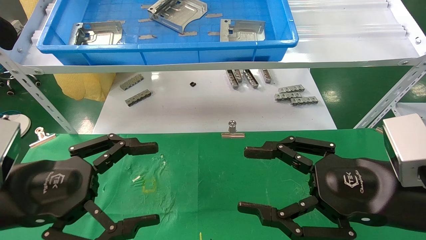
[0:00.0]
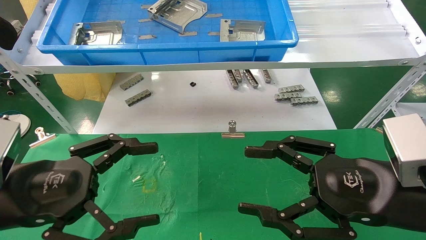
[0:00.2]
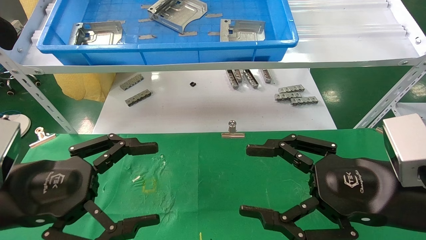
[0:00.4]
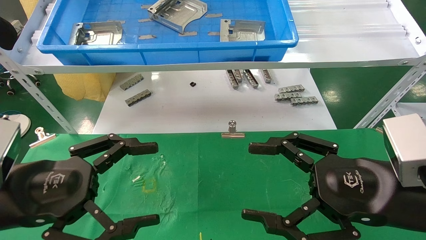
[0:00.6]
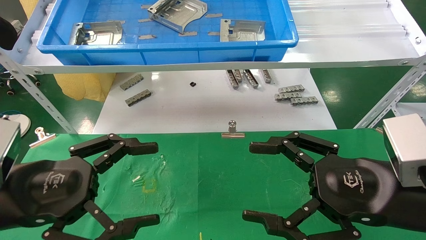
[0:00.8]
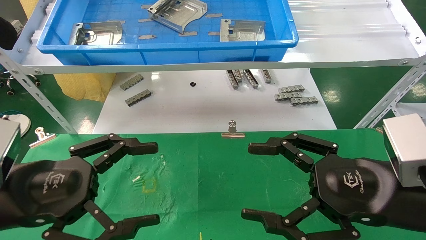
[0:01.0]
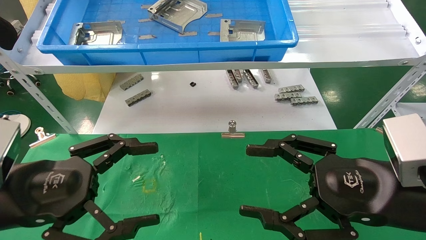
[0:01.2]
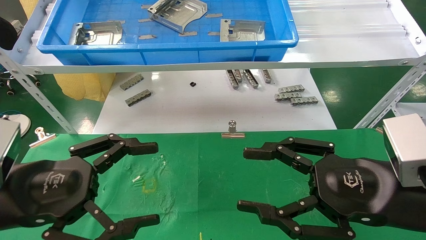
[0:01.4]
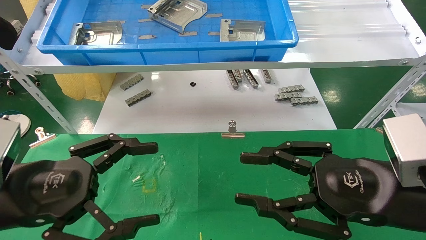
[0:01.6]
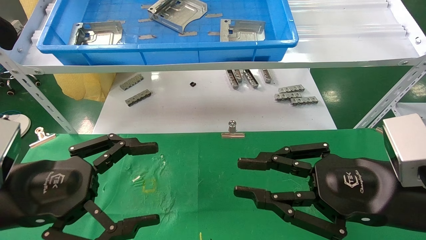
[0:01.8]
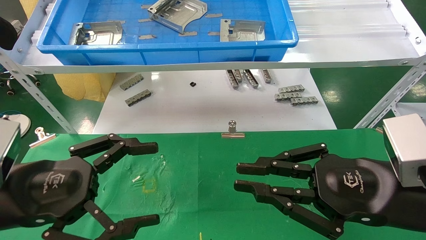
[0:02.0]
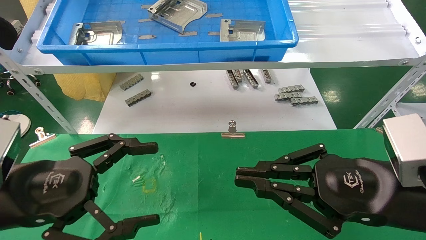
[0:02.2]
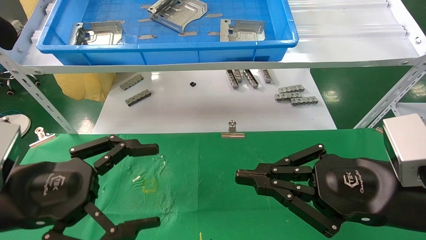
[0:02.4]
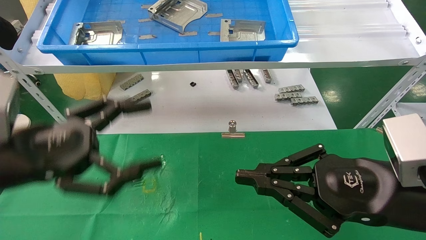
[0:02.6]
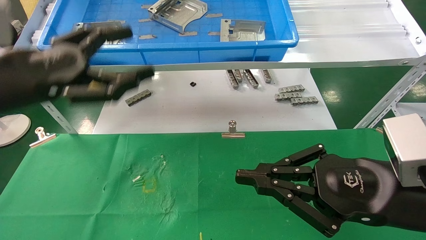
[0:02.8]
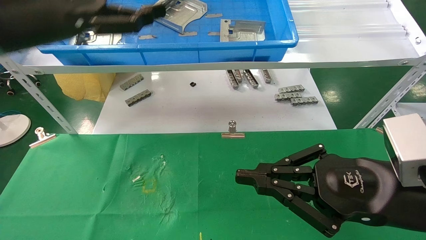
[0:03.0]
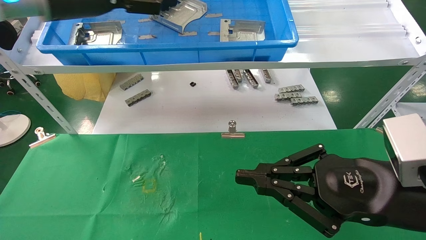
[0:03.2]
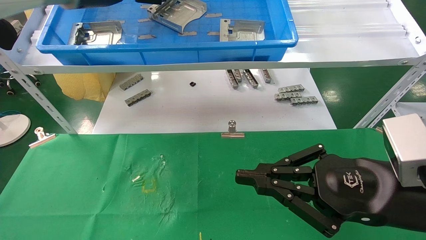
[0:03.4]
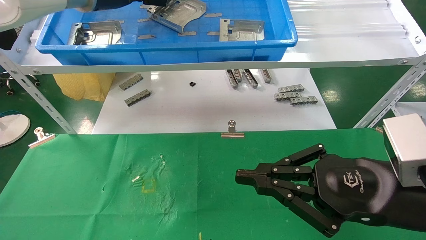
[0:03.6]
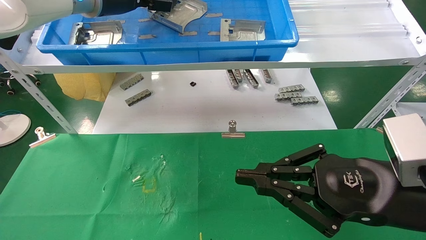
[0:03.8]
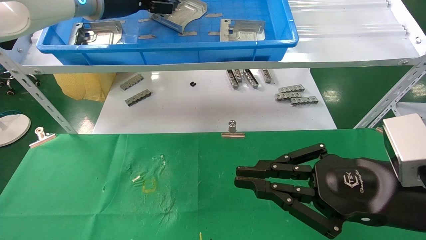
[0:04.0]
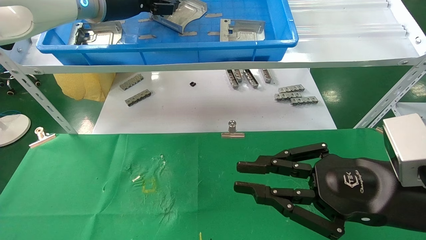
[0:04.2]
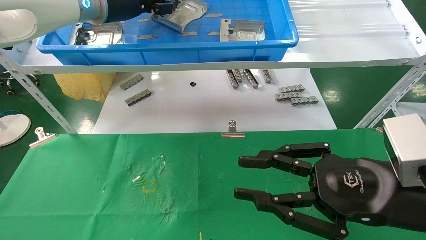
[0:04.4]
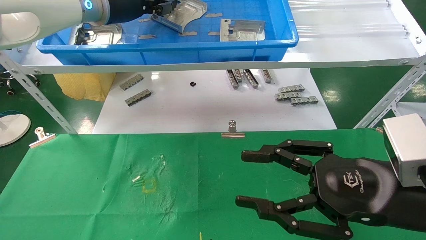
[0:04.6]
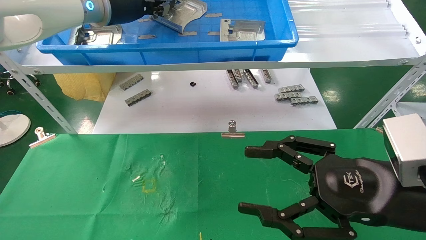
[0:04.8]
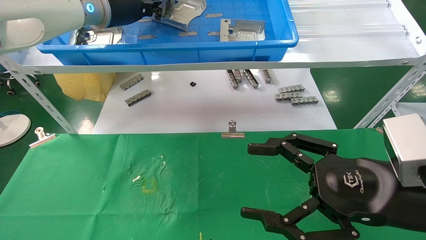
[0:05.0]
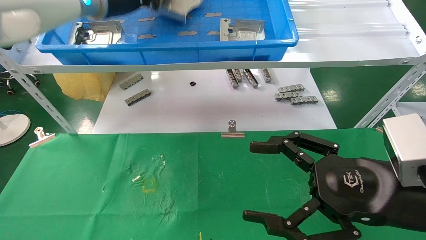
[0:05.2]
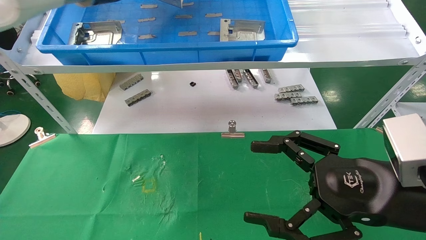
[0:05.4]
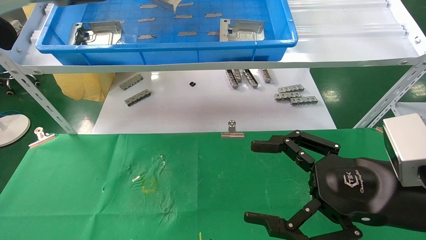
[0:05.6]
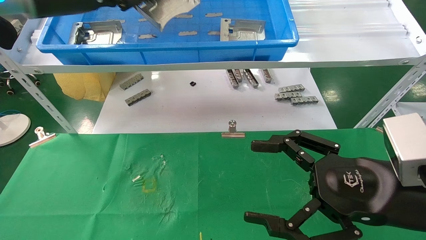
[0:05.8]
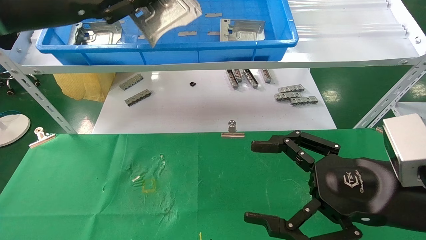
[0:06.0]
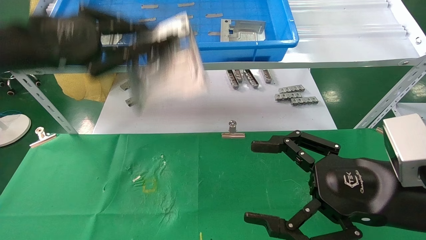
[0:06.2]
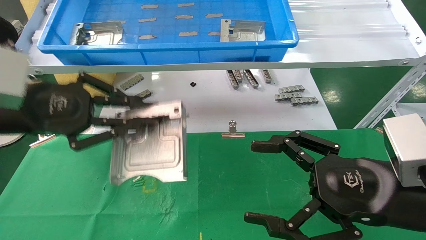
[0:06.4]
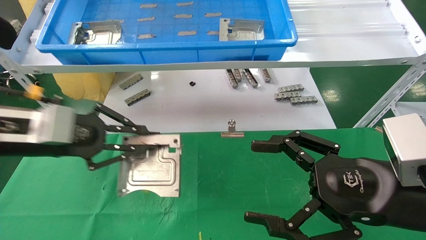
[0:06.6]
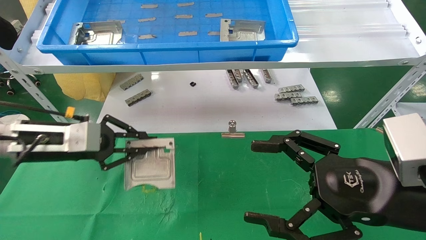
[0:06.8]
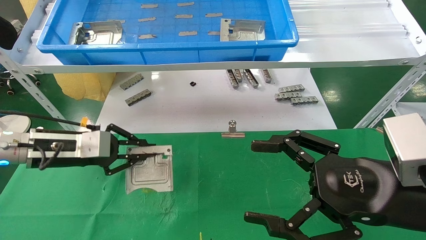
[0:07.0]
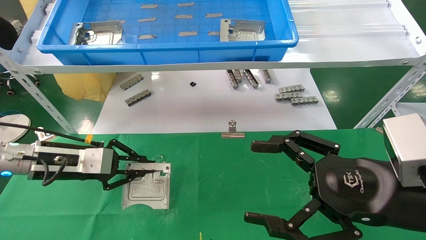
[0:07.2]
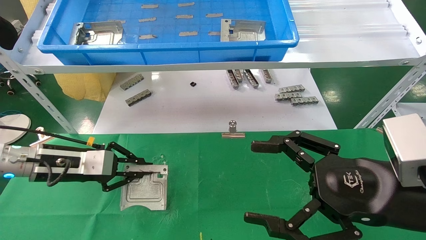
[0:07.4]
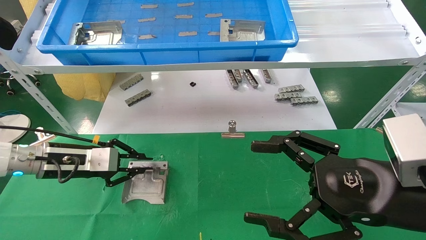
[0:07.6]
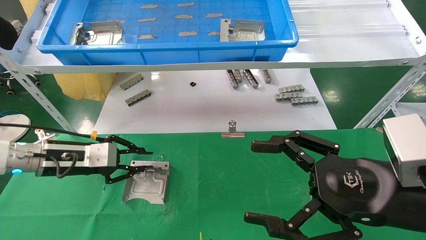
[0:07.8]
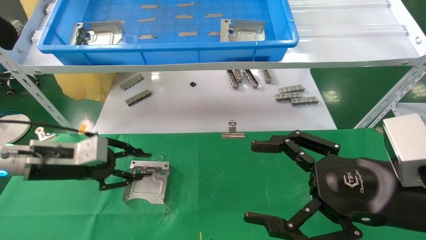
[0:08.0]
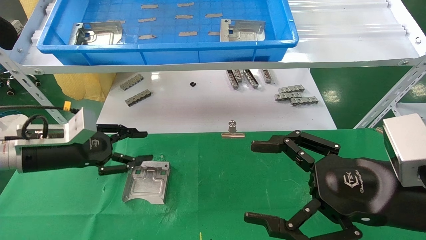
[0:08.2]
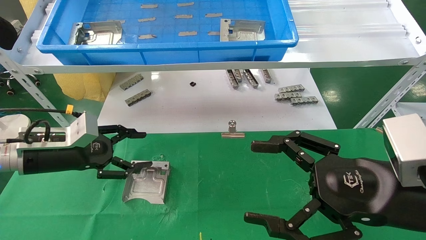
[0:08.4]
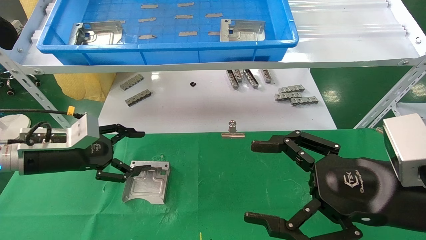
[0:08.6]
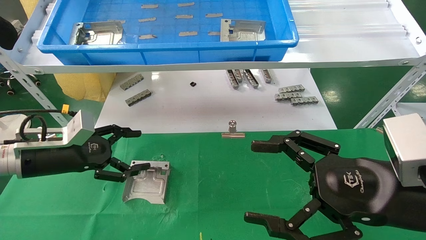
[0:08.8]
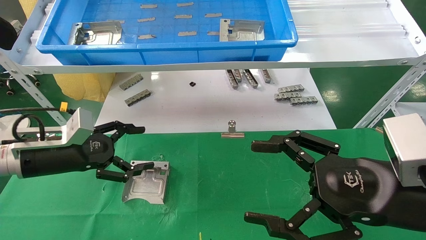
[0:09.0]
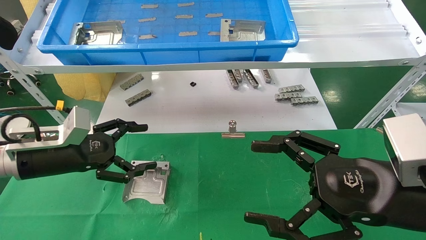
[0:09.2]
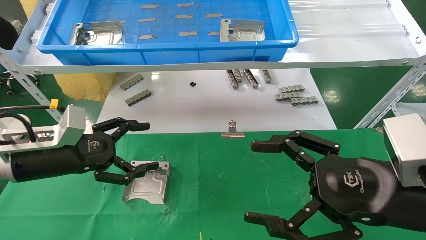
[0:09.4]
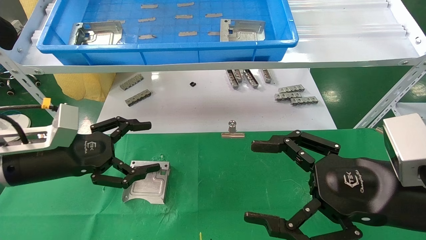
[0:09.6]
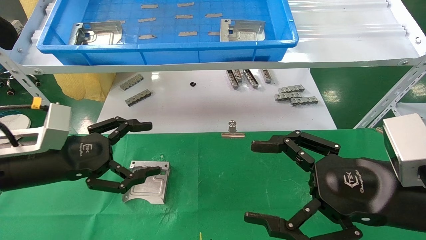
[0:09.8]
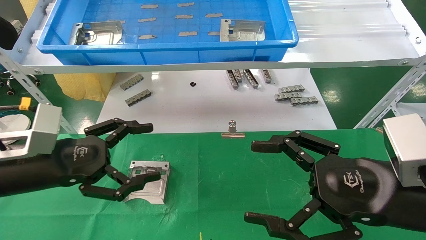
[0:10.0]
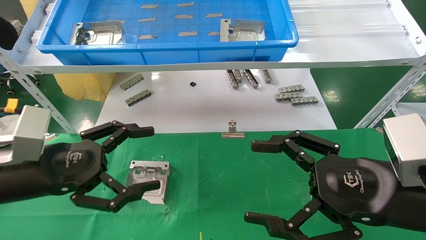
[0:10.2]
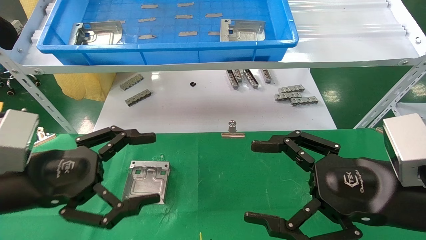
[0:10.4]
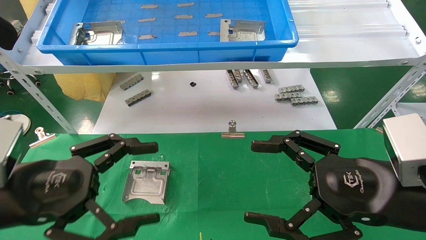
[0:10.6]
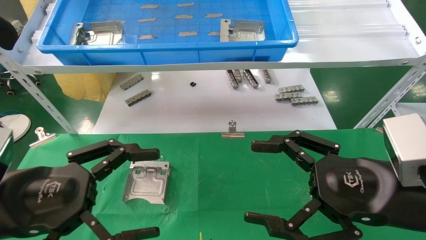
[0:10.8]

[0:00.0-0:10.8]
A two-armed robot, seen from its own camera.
Task of the whole recording: use the mechanical arm to pick up the parts and place them on the table.
Step, 0:02.6 to 0:05.0: Pick up the hard drive bracket from the feeding area.
Step, 0:05.2 to 0:08.0: Place the hard drive bracket into the box.
0:00.0 to 0:01.6: Both grippers stay put.
0:01.6 to 0:03.0: The right gripper closes. The left gripper travels upward and forward by about 20 cm.
0:03.0 to 0:04.6: The right gripper opens its fingers. The left gripper heads forward, to the right and upward, covering roughly 15 cm, and closes.
0:04.6 to 0:06.2: The left gripper shifts about 20 cm backward, to the left and downward, and closes its fingers; the right gripper opens.
0:06.2 to 0:07.8: The left gripper heads downward, covering some 20 cm.
0:07.8 to 0:09.2: The left gripper opens up.
0:09.2 to 0:10.8: The left gripper shifts approximately 15 cm backward.

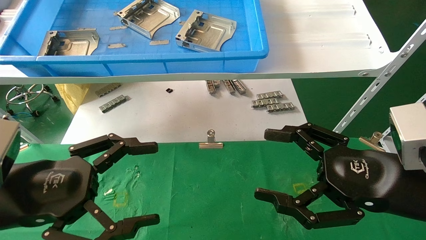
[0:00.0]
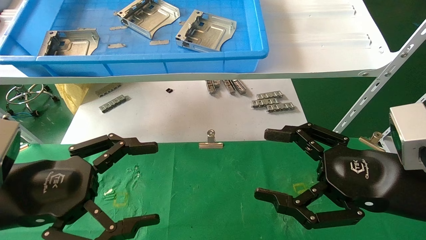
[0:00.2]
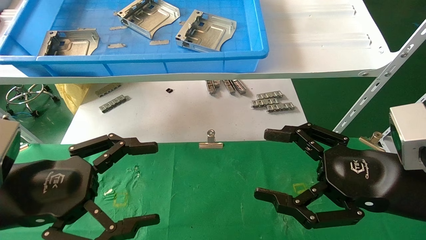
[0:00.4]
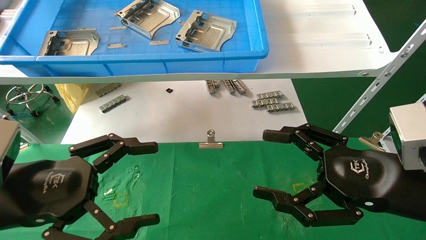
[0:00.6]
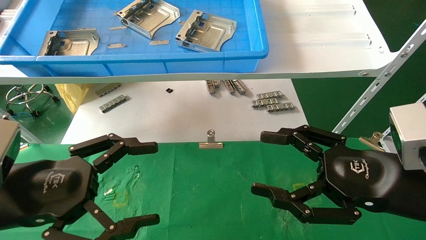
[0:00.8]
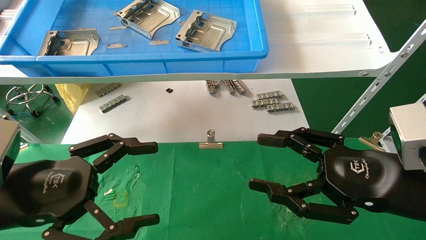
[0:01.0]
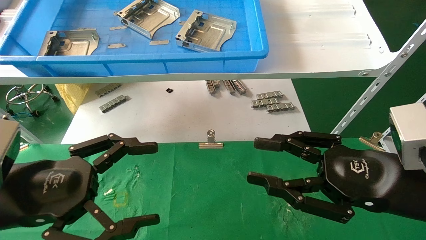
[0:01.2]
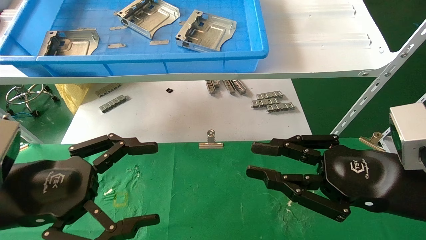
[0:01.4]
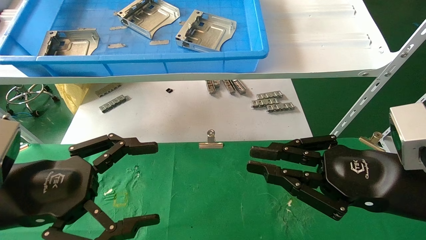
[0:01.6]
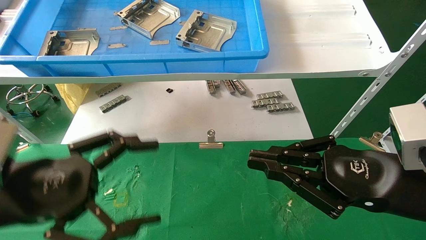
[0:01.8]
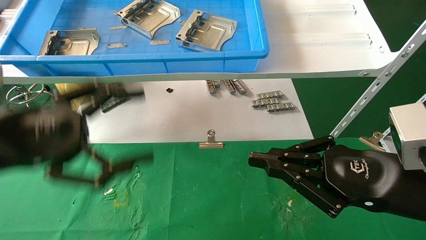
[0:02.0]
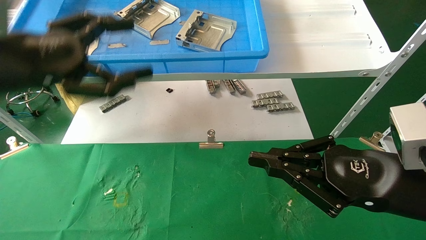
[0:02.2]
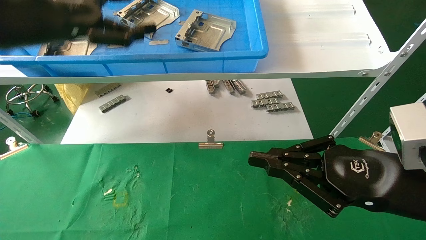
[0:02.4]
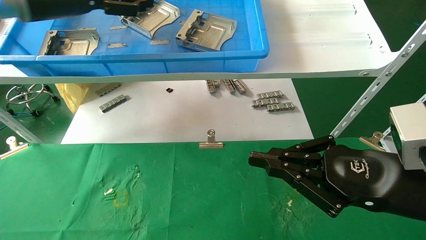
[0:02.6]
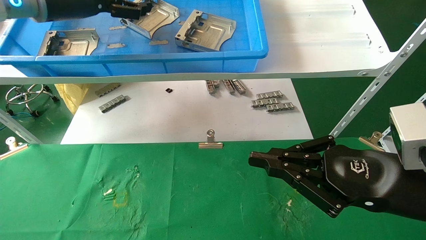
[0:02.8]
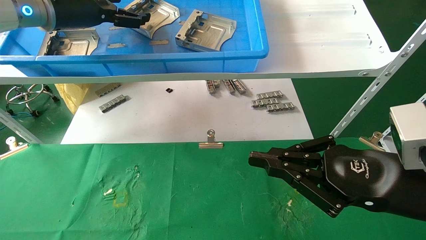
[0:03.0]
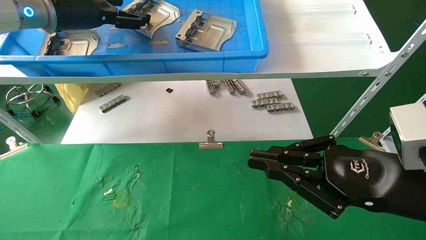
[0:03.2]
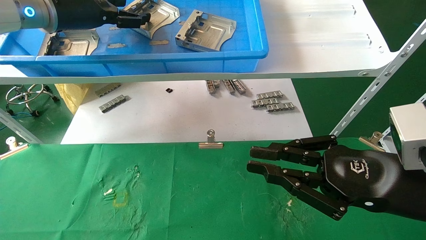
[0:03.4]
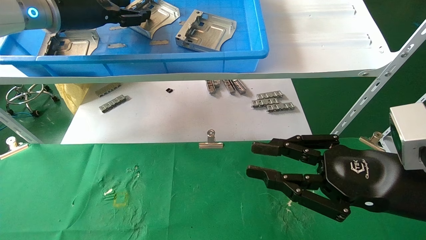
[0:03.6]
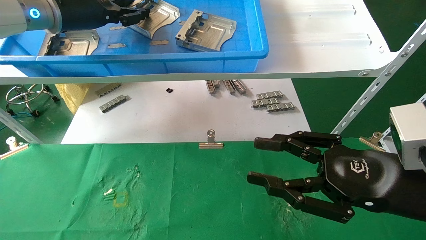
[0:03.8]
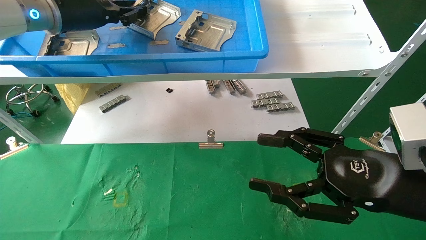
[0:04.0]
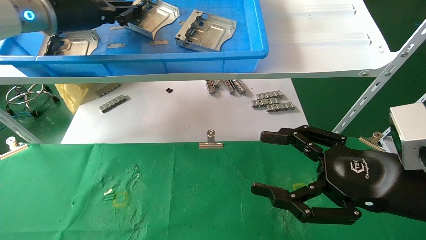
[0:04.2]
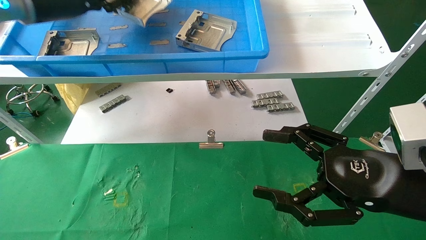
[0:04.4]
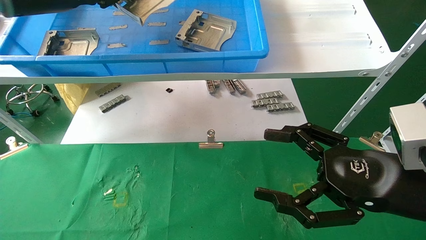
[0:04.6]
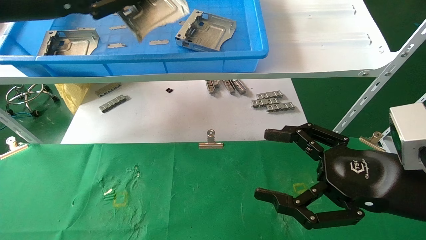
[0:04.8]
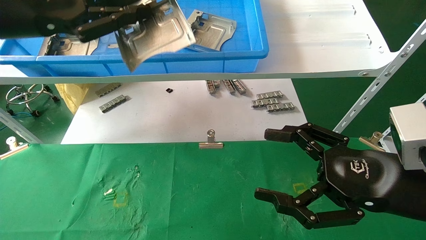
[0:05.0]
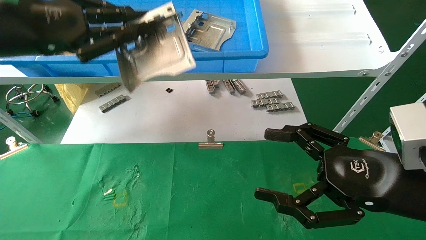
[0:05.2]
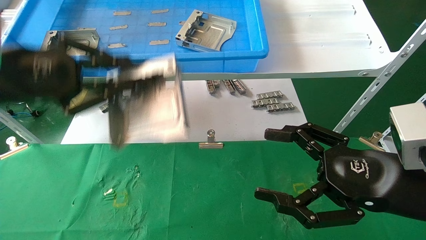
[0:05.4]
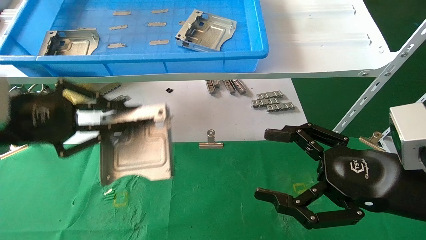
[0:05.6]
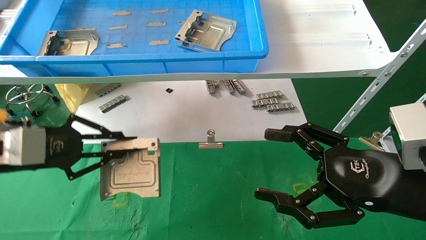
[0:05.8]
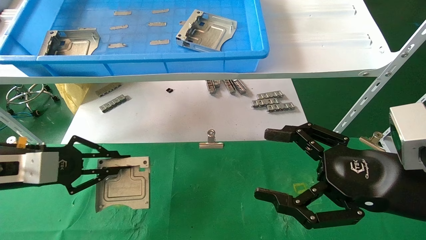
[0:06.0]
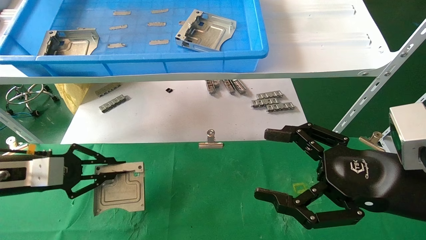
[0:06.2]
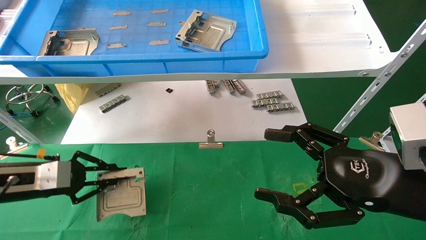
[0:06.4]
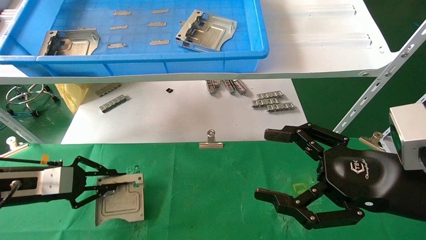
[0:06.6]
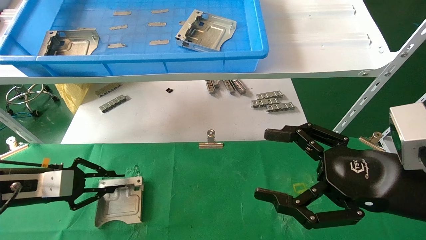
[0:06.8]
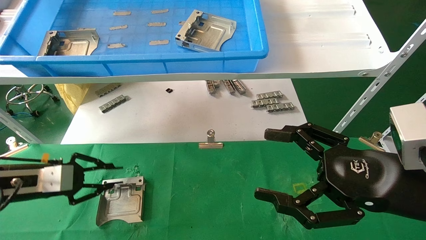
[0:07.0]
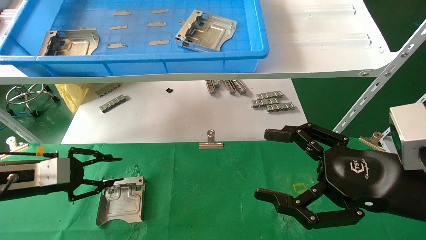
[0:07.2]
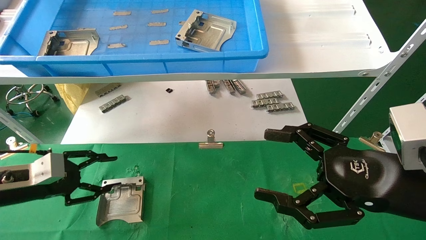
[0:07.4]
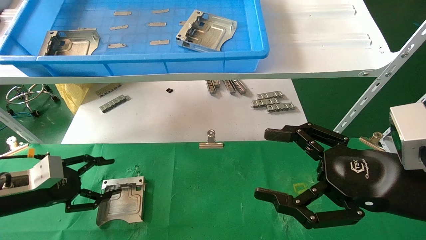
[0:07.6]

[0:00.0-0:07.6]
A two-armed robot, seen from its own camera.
Task of the whole recording: use the mechanical arm to pick up the parts and place them on the table.
Step, 0:02.0 to 0:04.0: Pick up the hard drive bracket from the feeding area.
Step, 0:04.2 to 0:07.4: Place the hard drive bracket into the box.
0:00.0 to 0:01.6: The right gripper closes.
0:01.6 to 0:03.0: The left gripper goes about 30 cm forward and upward.
0:03.0 to 0:04.6: The right gripper opens up. Meanwhile the left gripper shifts by approximately 5 cm, and closes.
0:04.6 to 0:06.0: The left gripper travels downward by some 25 cm.
0:06.0 to 0:07.6: The left gripper shifts roughly 10 cm downward, and opens its fingers.
